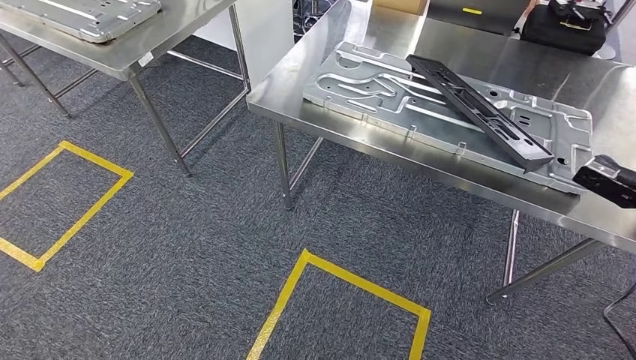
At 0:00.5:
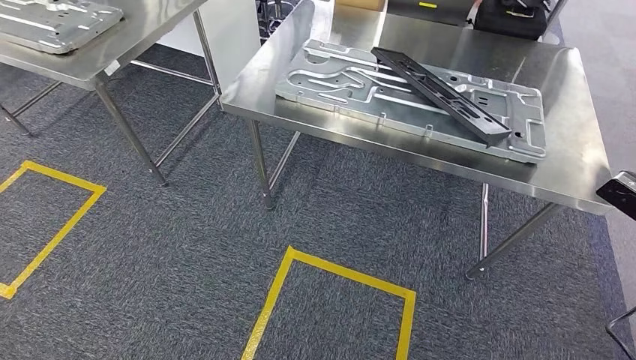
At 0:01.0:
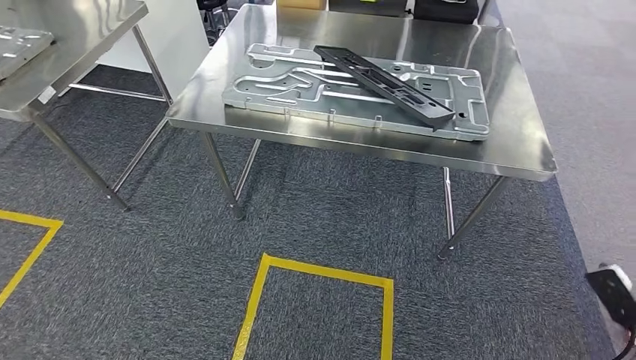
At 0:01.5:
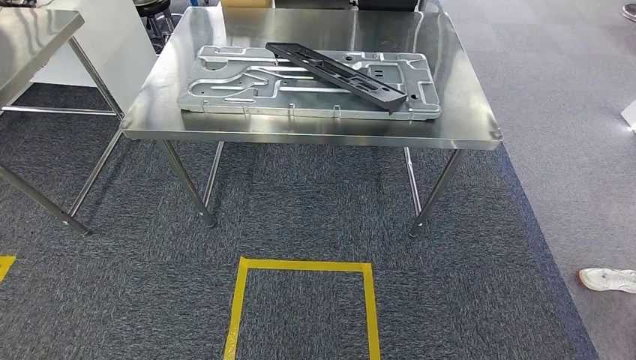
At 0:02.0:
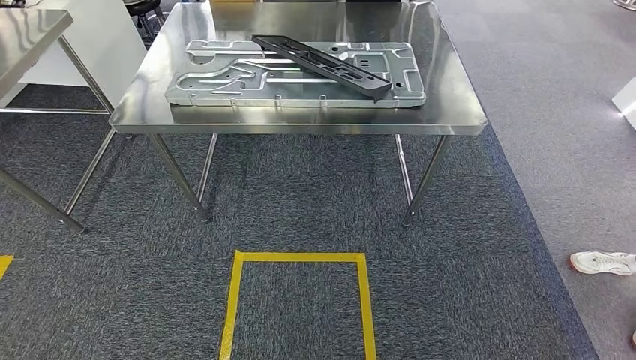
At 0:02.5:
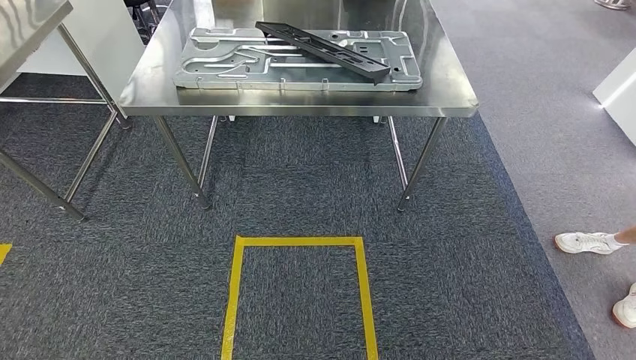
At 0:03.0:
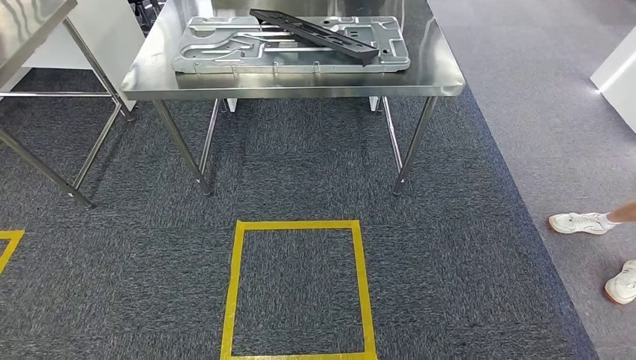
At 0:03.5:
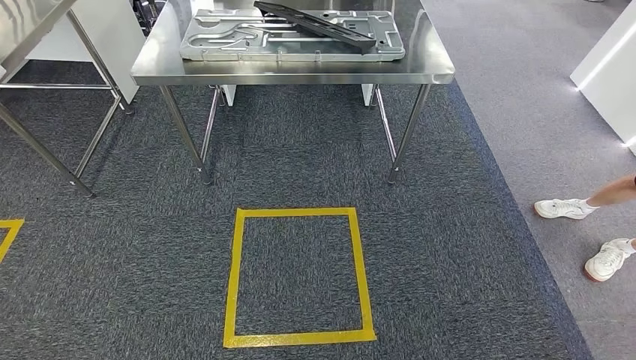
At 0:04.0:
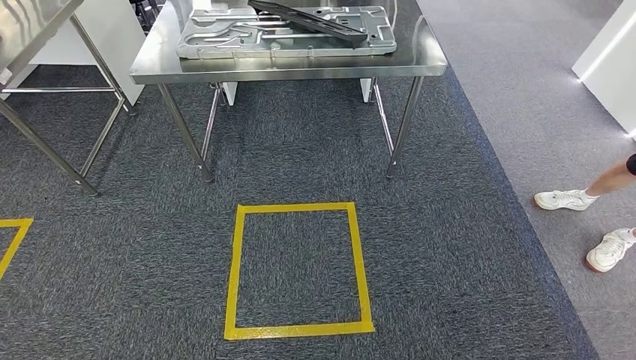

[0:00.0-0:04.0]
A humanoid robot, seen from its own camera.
Step, 0:02.5 to 0:04.0: Return to the initial position at the shelf.
